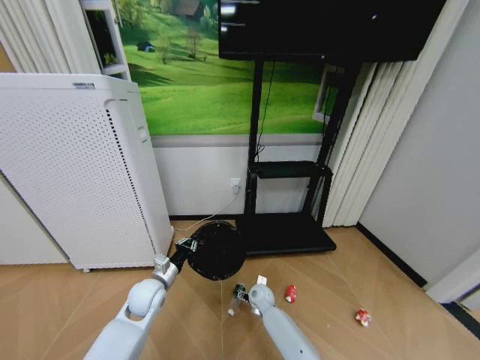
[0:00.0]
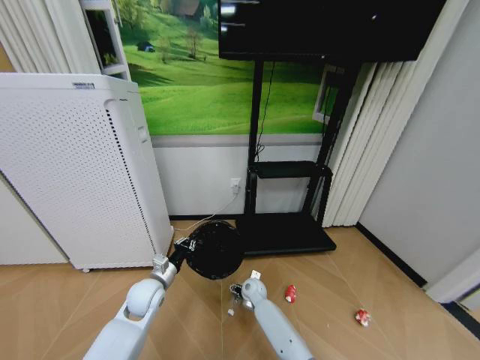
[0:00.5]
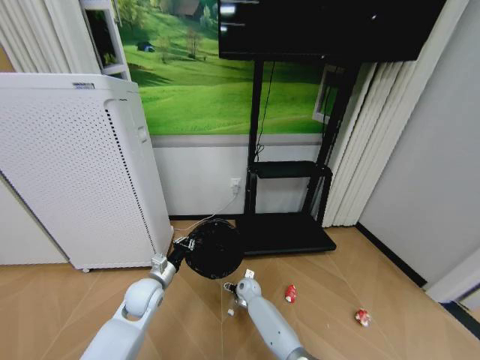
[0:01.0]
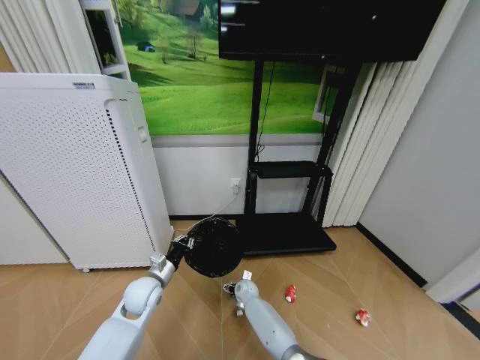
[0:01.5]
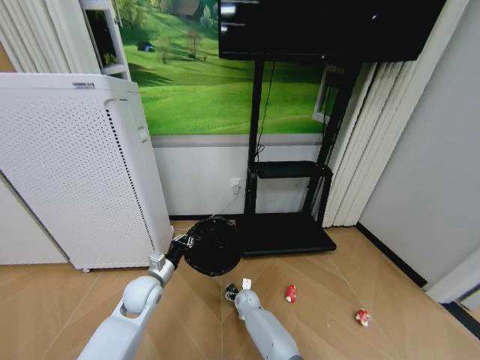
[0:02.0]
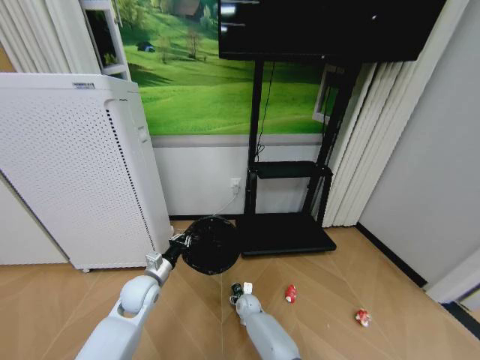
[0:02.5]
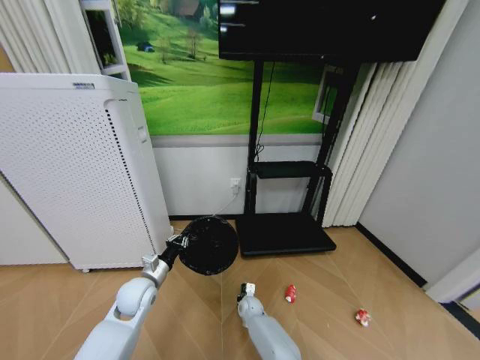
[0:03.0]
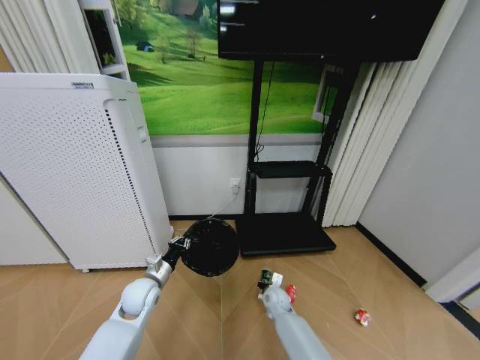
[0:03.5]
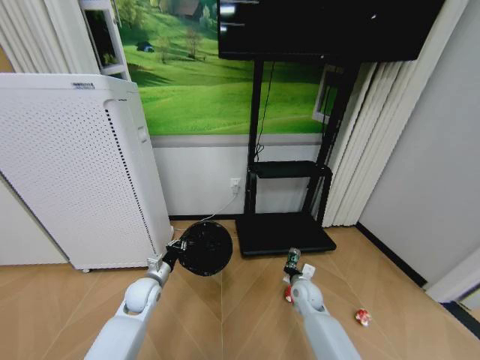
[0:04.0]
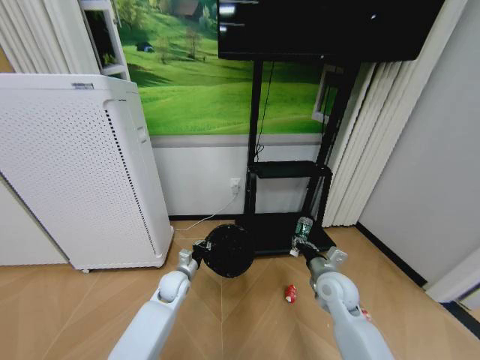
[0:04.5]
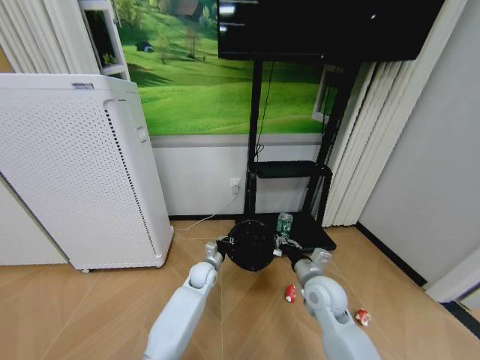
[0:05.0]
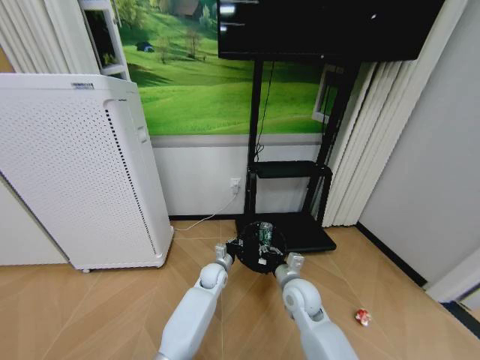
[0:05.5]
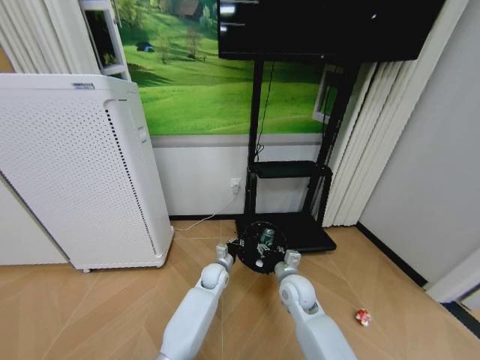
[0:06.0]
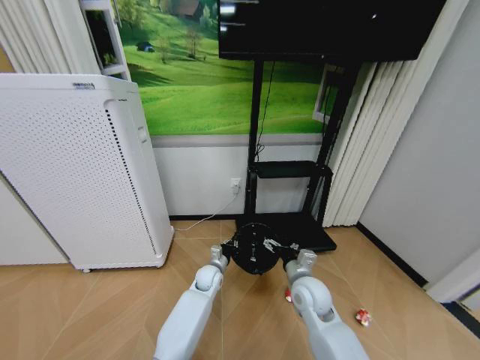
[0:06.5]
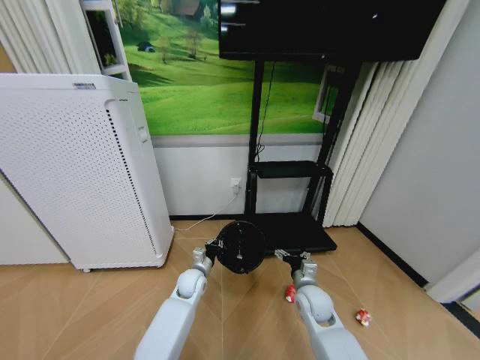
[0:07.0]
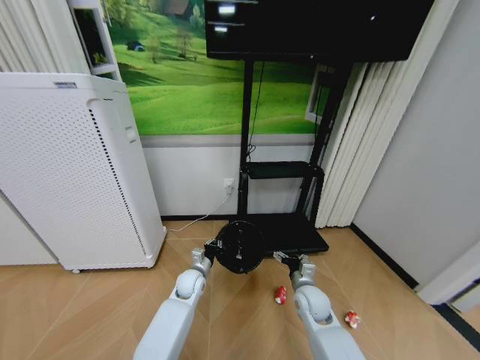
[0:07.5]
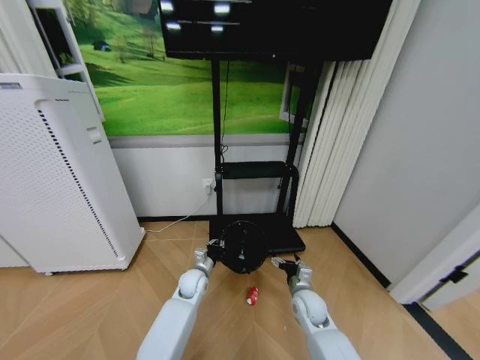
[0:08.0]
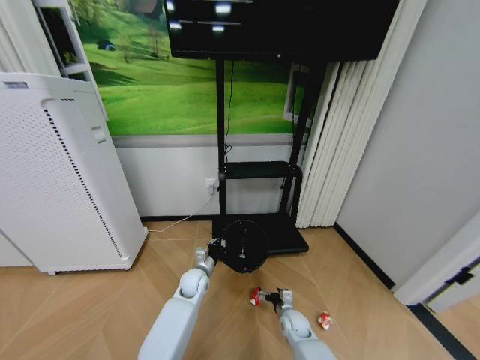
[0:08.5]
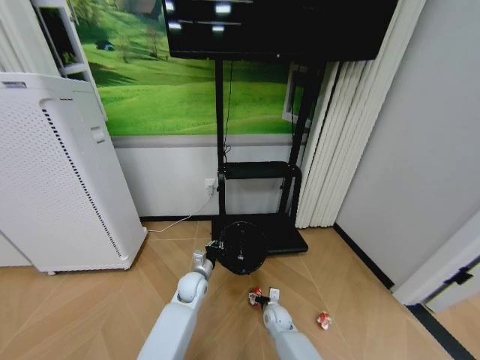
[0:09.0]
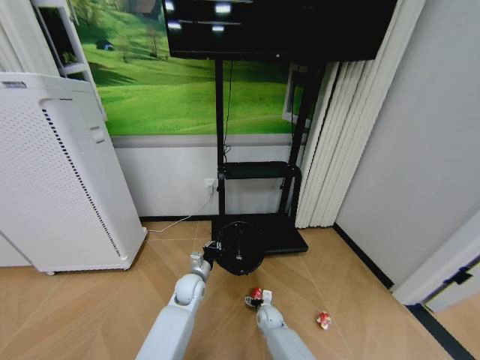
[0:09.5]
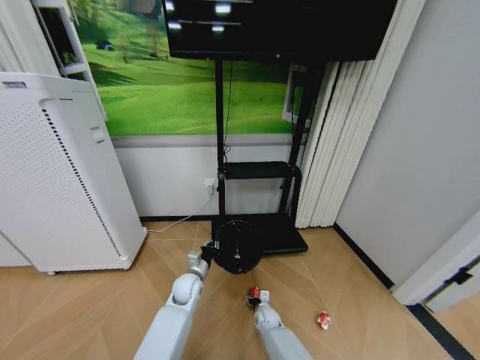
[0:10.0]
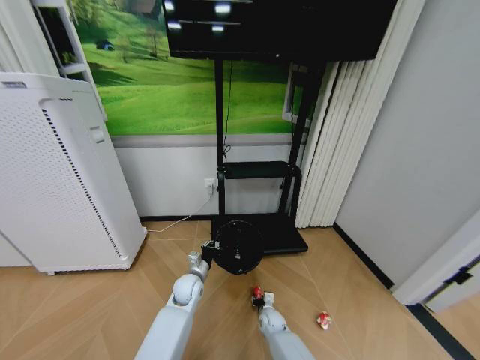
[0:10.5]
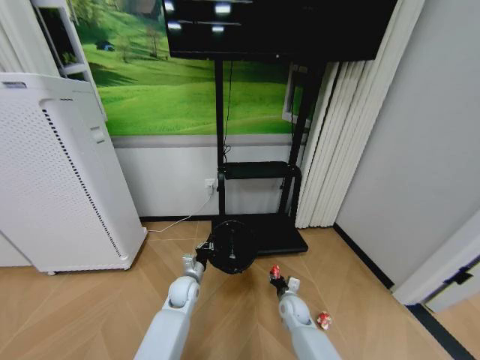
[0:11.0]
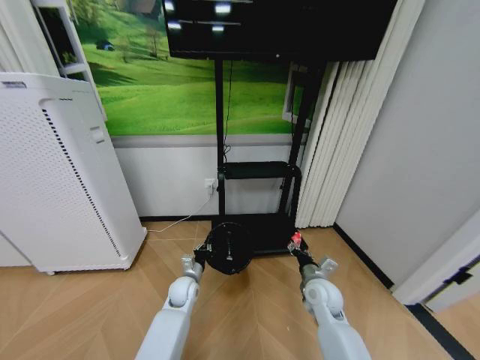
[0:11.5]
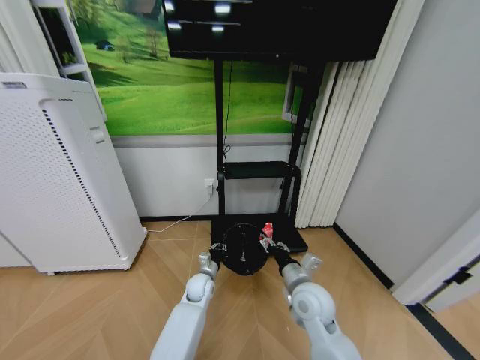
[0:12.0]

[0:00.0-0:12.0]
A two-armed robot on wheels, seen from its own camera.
Task of the whole recording: Pick up the trash bin and place the garbage on the floor into it.
0:00.0 to 0:02.0: The right gripper is displaced downward by about 5 cm.
0:02.0 to 0:04.0: The right gripper shifts roughly 20 cm to the right and upward, and closes its fingers.
0:04.0 to 0:06.0: The right gripper heads upward and to the left, covering some 10 cm, and opens. Meanwhile the left gripper shifts approximately 20 cm to the right.
0:06.0 to 0:08.0: The left gripper travels to the left by some 5 cm. Meanwhile the right gripper is displaced downward by about 5 cm, and opens its fingers.
0:08.0 to 0:10.0: The right gripper goes about 20 cm downward and to the left, and closes its fingers.
0:10.0 to 0:12.0: The right gripper travels upward by about 30 cm, while the left gripper changes place by roughly 5 cm.

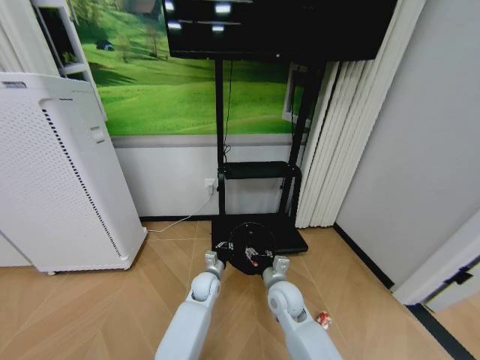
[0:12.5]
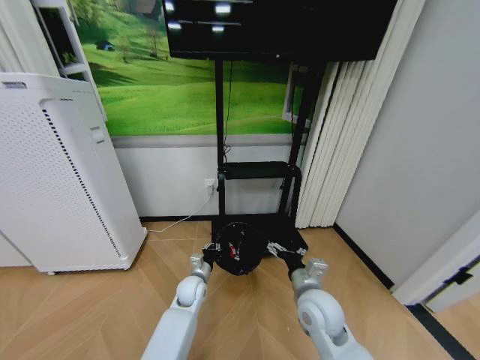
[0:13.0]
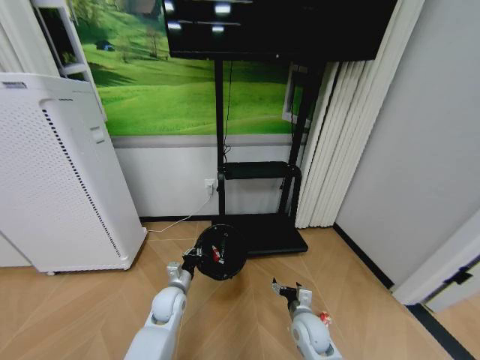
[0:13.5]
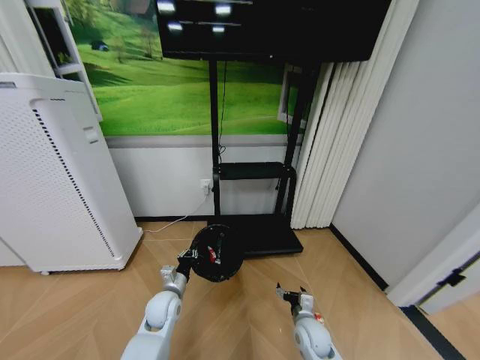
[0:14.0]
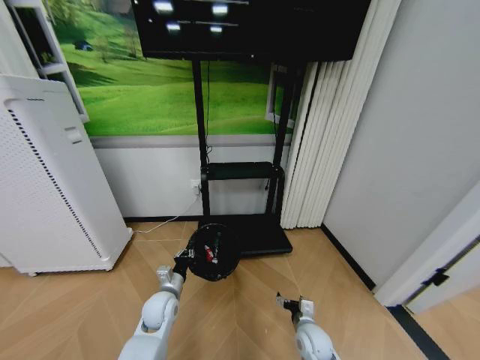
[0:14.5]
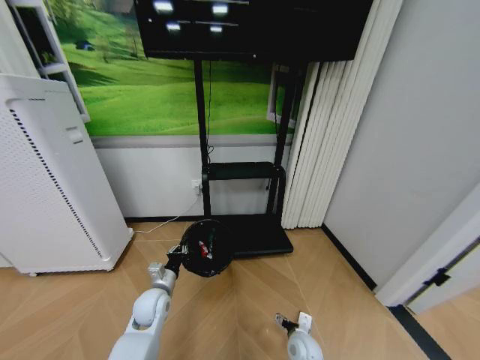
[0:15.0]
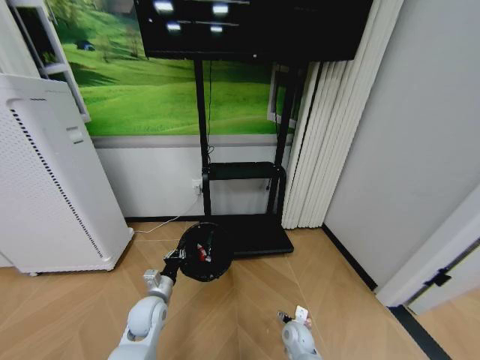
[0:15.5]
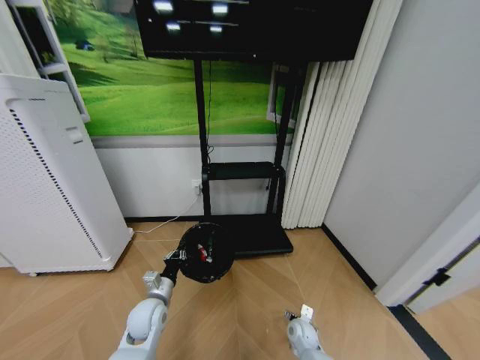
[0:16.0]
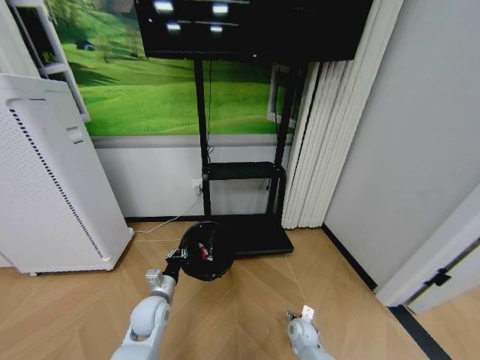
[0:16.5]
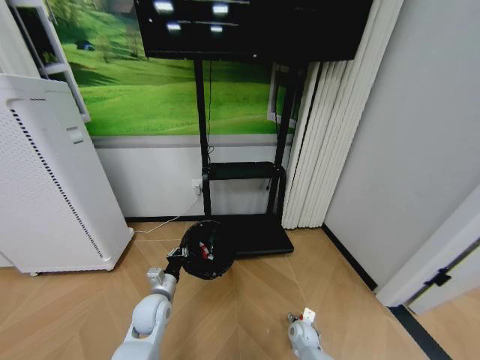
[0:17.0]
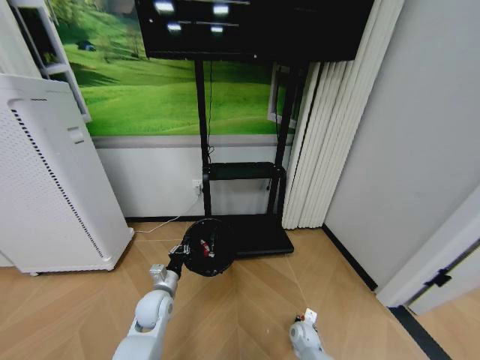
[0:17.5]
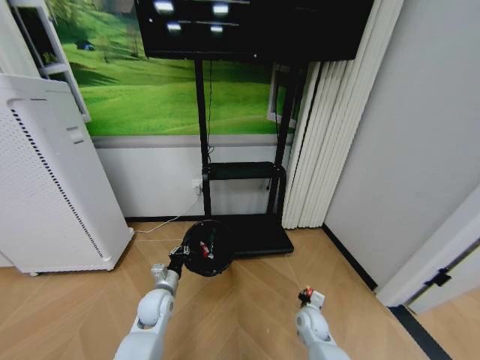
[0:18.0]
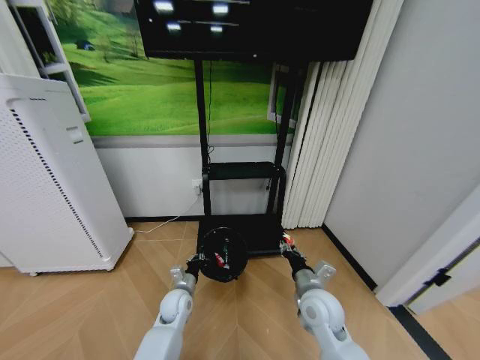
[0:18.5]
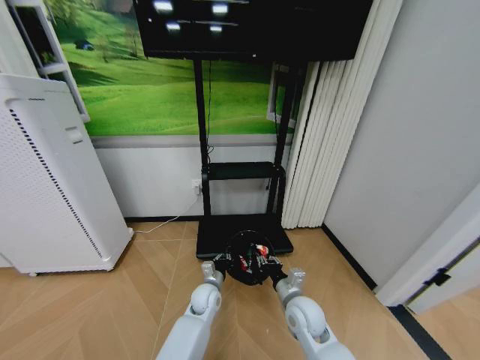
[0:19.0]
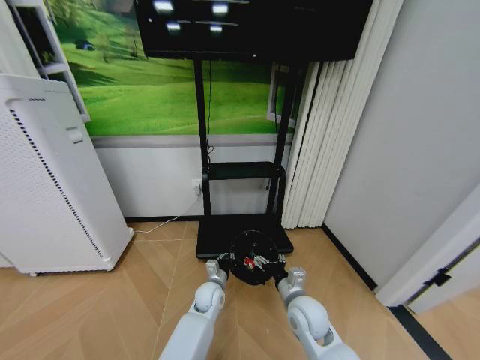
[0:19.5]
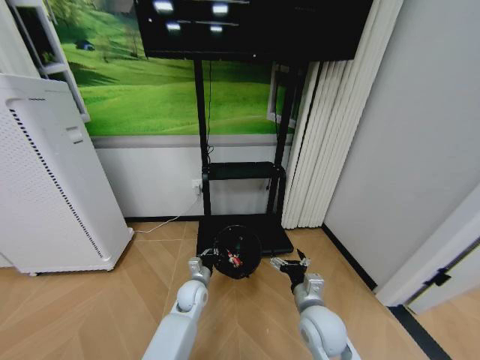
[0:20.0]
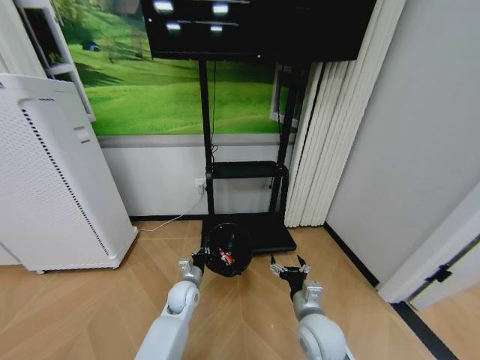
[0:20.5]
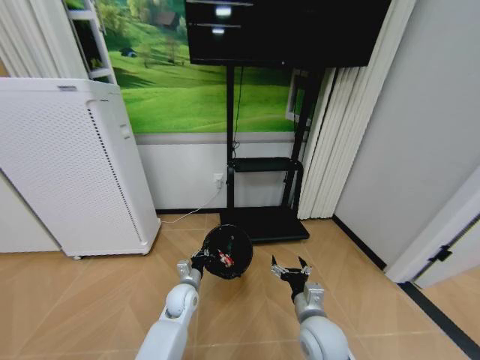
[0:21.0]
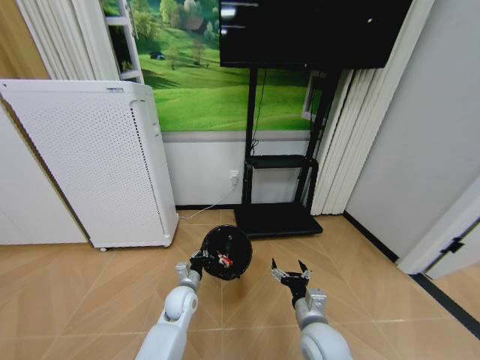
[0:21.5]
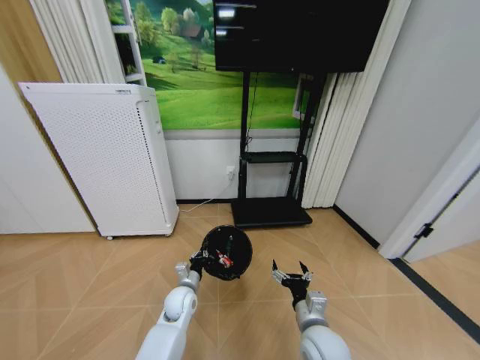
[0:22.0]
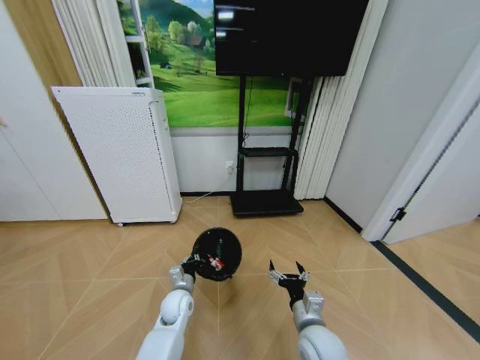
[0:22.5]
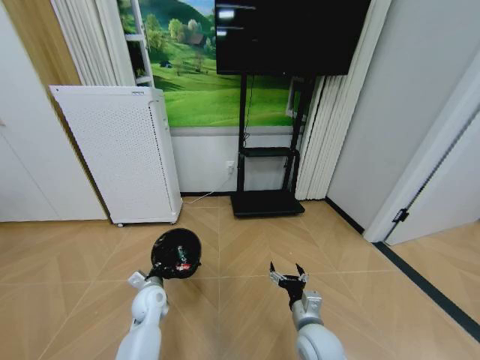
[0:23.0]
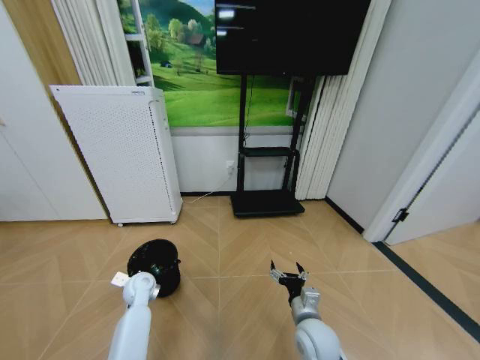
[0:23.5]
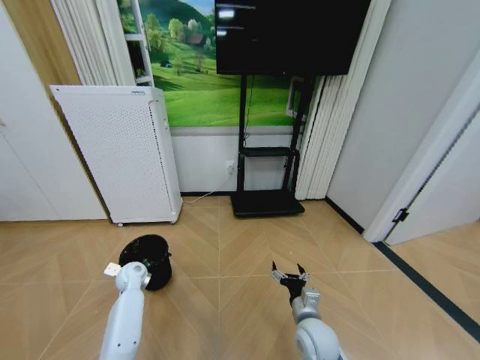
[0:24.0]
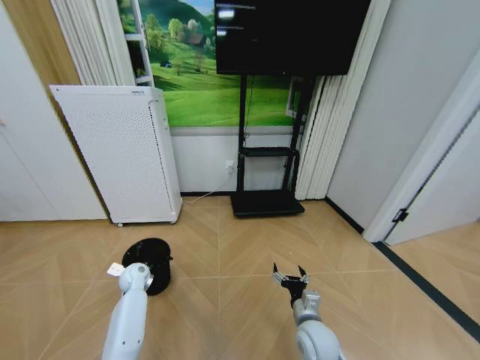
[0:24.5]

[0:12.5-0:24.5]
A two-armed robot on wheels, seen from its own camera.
Task of the whole recording: Pick up the trash bin and place the garbage on the floor into it.
0:12.5 to 0:14.5: The left gripper moves to the left and backward, about 15 cm; the right gripper shifts approximately 15 cm downward, to the right and backward, and opens up.
0:14.5 to 0:16.5: The right gripper travels downward by some 10 cm.
0:16.5 to 0:18.5: The left gripper moves downward, some 5 cm. Meanwhile the right gripper is displaced upward by roughly 25 cm, and closes.
0:18.5 to 0:20.5: The right gripper moves backward, about 5 cm, and opens up, while the left gripper moves roughly 10 cm to the right and comes back.
0:22.5 to 0:24.5: The right gripper moves downward, some 5 cm; the left gripper travels to the left and forward by approximately 20 cm.

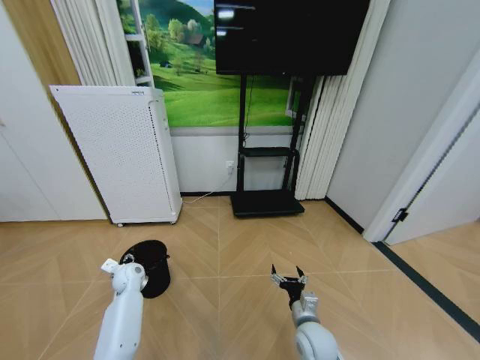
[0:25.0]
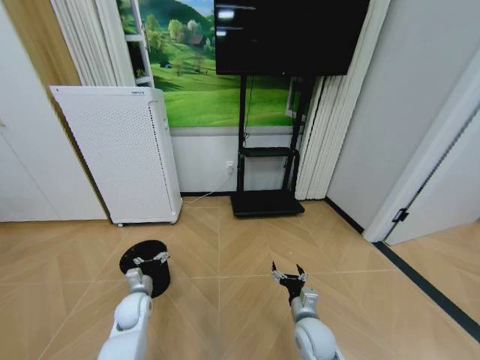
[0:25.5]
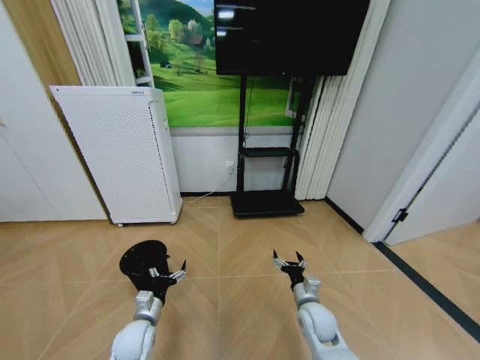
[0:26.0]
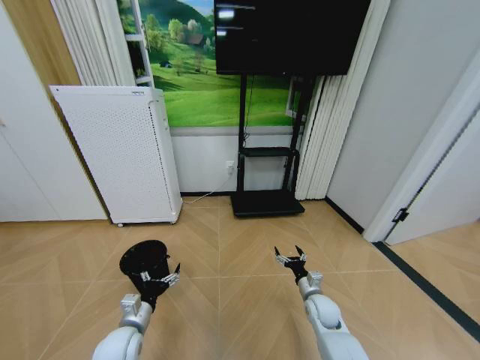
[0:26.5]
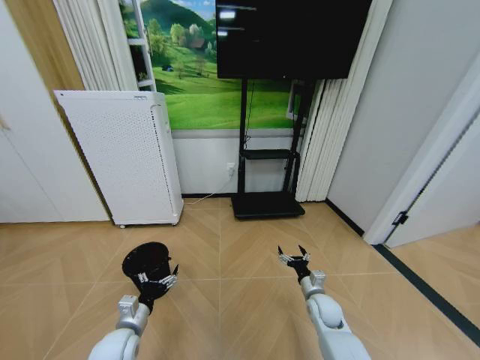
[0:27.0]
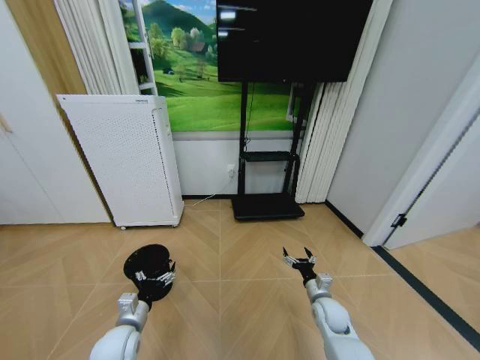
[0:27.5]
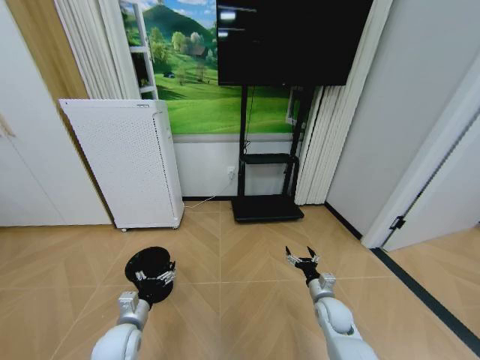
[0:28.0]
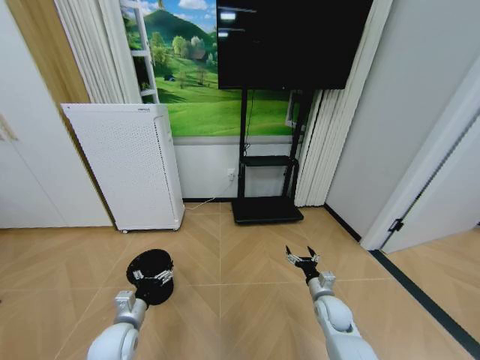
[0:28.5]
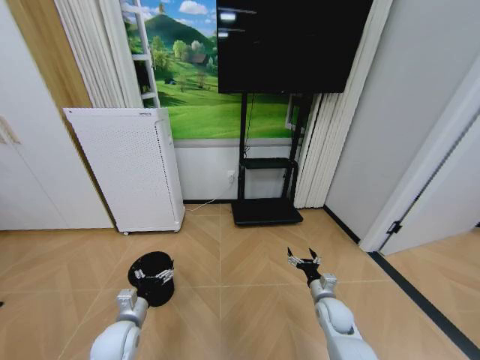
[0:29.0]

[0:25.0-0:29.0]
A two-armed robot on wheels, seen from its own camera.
Task of the whole recording: Pick up the trash bin and place the garbage on the floor into it.
0:25.0 to 0:27.0: The right gripper moves forward and to the right, approximately 15 cm, while the left gripper moves backward, about 20 cm.
0:27.0 to 0:29.0: The grippers make only small movements.
